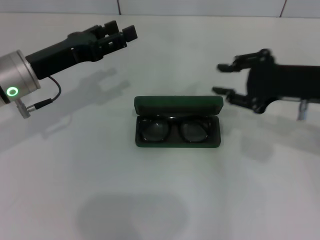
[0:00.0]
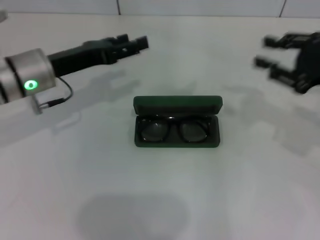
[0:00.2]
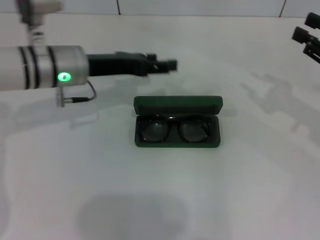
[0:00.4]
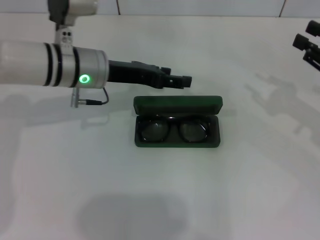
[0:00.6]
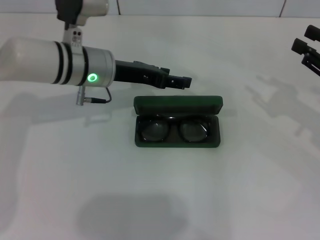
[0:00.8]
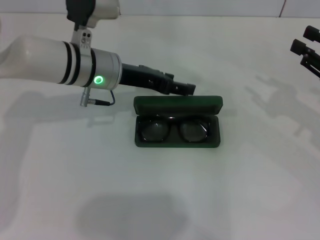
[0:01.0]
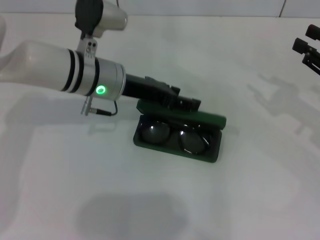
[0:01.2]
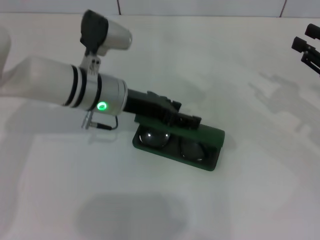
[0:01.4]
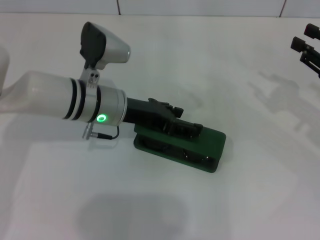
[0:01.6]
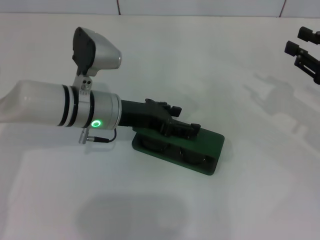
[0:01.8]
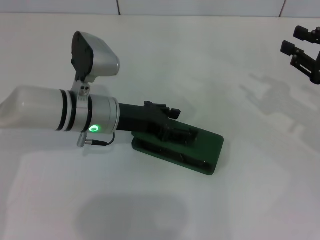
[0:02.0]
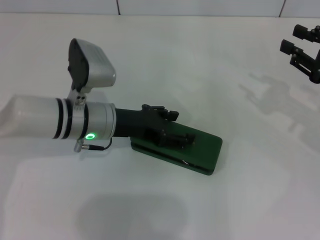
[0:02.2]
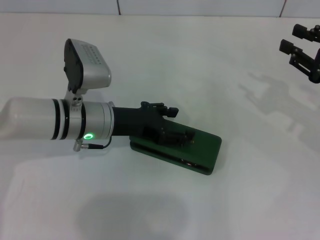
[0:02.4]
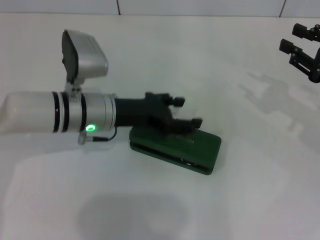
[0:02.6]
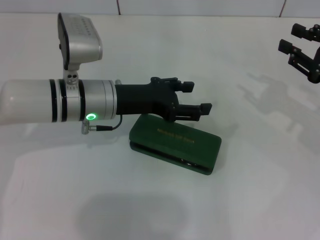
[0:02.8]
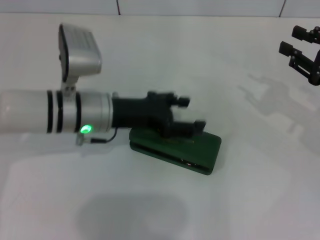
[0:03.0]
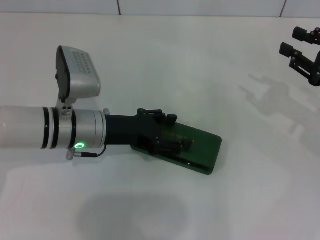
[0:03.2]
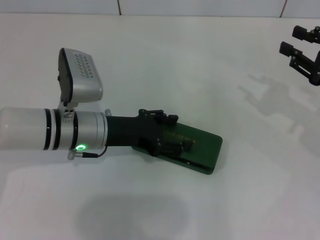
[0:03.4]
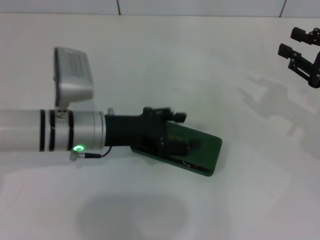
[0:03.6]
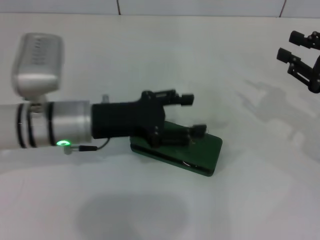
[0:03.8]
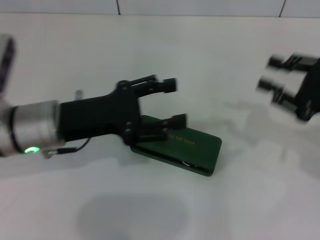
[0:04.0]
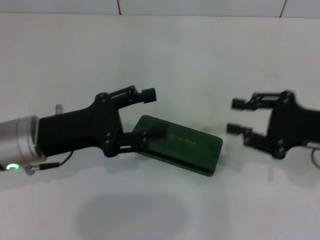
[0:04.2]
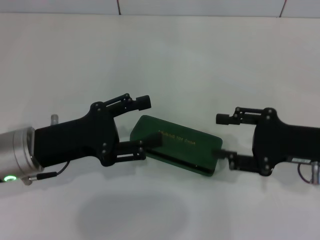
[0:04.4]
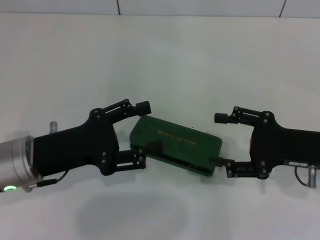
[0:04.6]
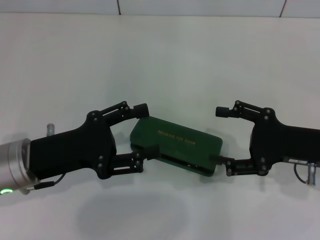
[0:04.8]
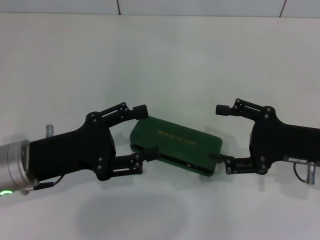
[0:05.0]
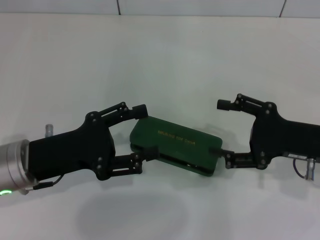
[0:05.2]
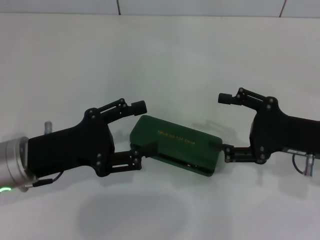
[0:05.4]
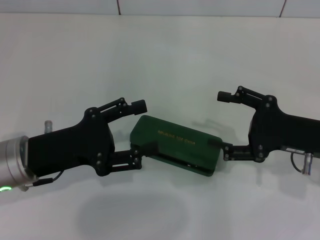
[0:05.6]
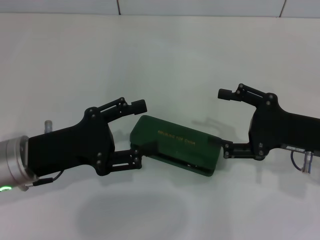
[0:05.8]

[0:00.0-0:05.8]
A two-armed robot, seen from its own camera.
Step, 0:00.0 to 0:03.8: Close the glasses case with your left hand.
0:00.0 to 0:01.4: Both grippers travel together to the right, about 10 cm.
0:02.8 to 0:04.4: The left gripper heads backward and to the left, covering approximately 10 cm, while the right gripper goes approximately 5 cm to the left.
0:04.4 to 0:05.8: The right gripper opens up.
